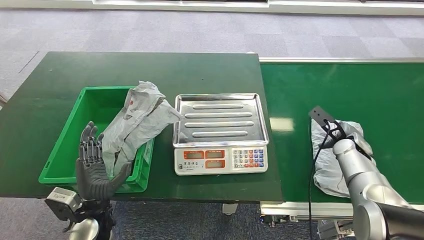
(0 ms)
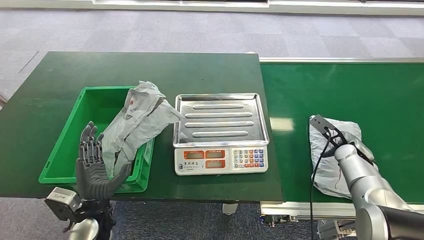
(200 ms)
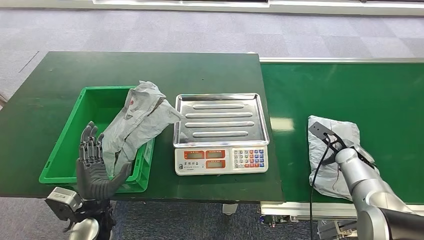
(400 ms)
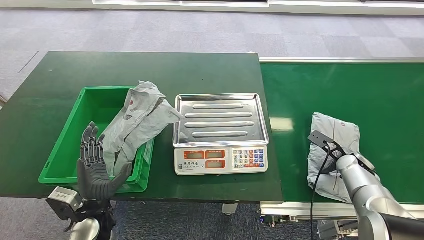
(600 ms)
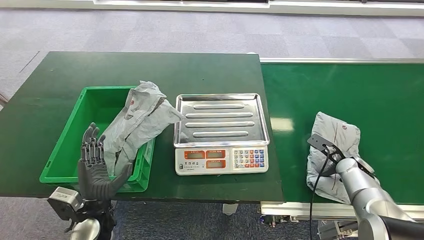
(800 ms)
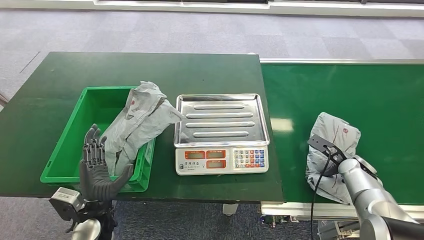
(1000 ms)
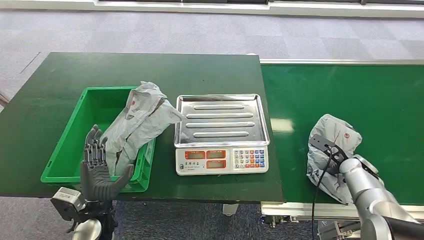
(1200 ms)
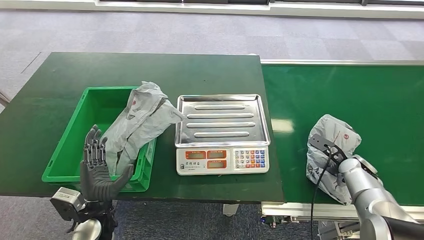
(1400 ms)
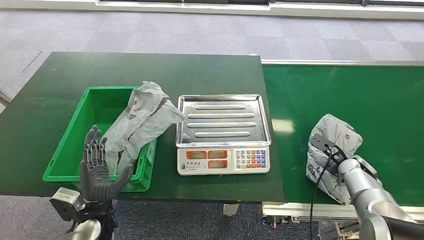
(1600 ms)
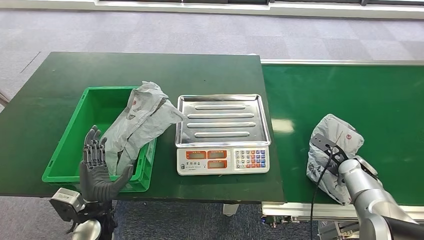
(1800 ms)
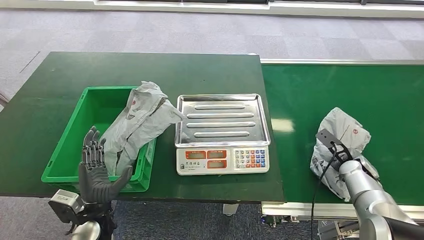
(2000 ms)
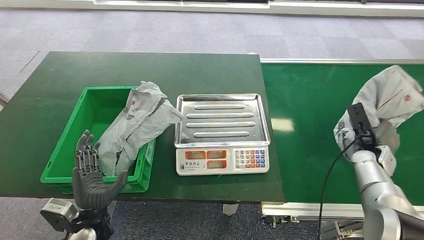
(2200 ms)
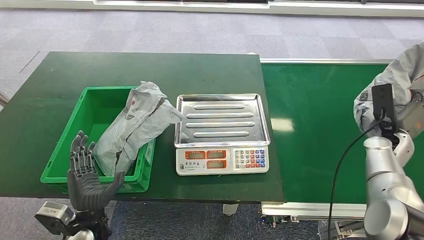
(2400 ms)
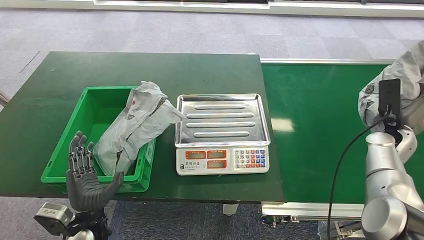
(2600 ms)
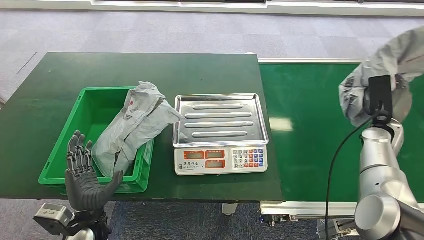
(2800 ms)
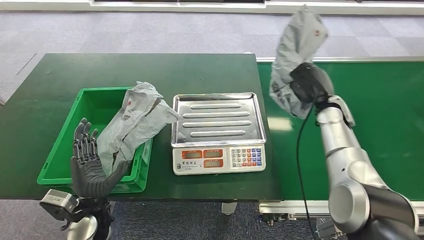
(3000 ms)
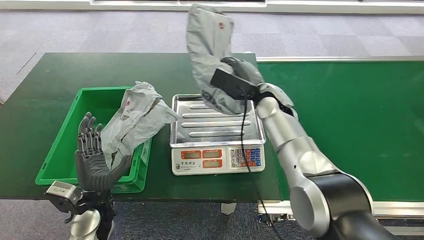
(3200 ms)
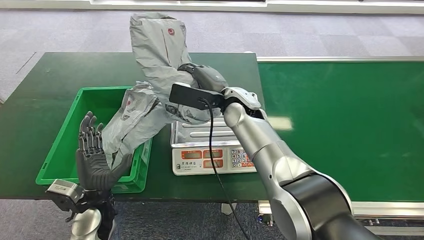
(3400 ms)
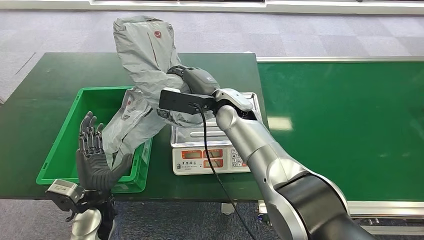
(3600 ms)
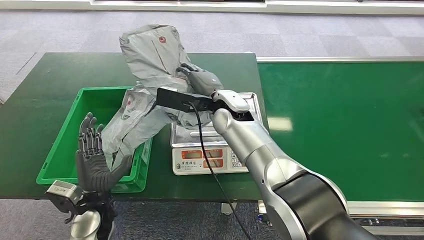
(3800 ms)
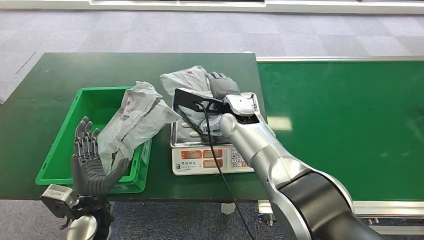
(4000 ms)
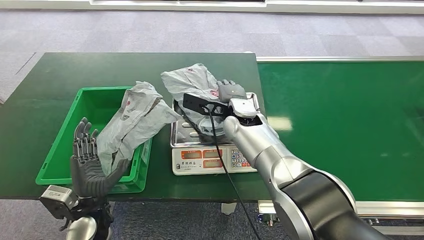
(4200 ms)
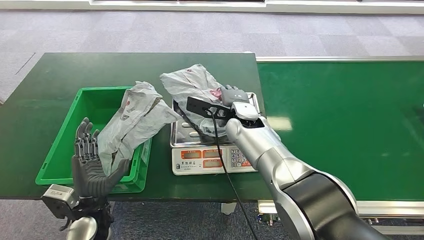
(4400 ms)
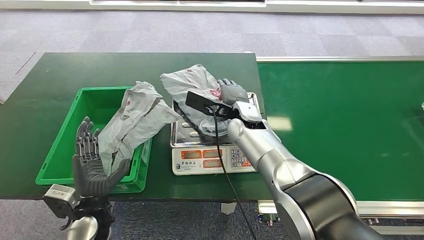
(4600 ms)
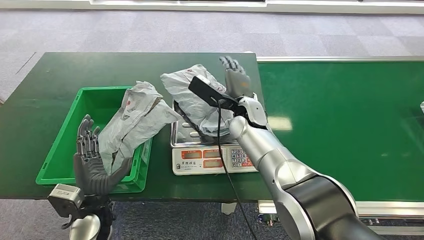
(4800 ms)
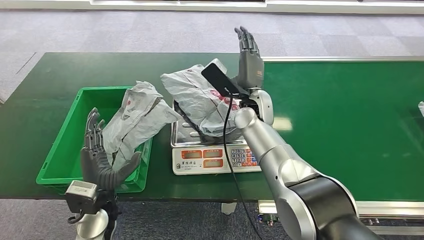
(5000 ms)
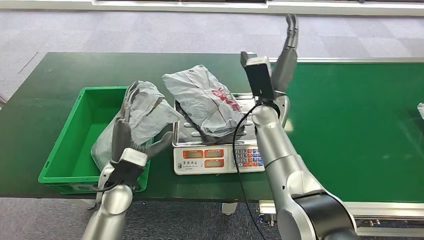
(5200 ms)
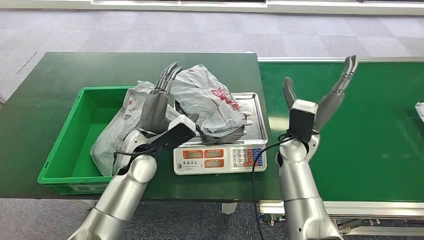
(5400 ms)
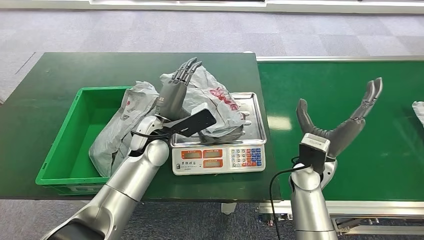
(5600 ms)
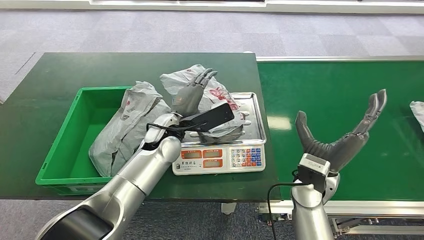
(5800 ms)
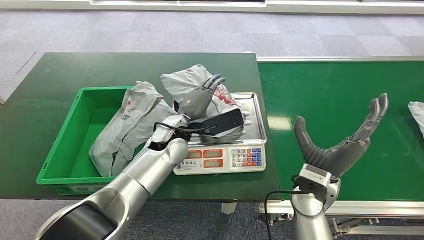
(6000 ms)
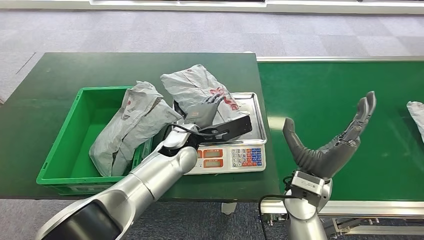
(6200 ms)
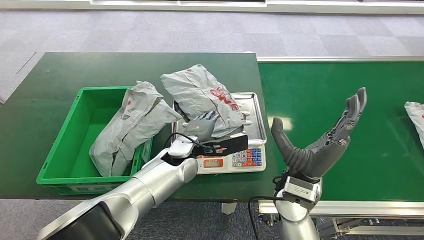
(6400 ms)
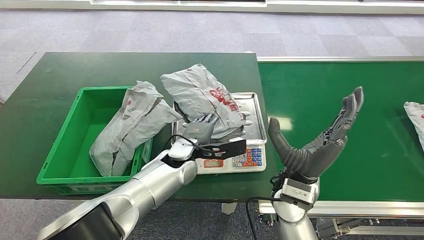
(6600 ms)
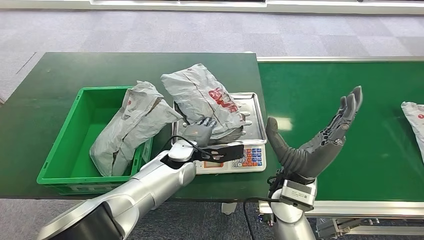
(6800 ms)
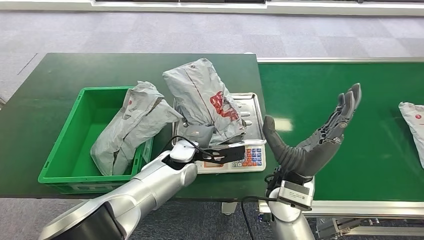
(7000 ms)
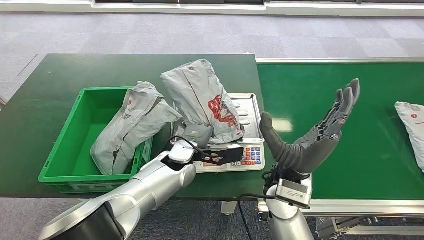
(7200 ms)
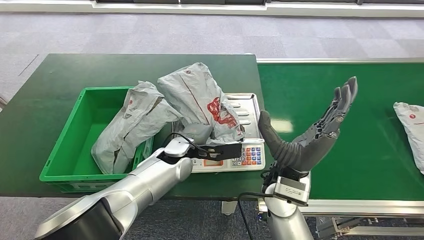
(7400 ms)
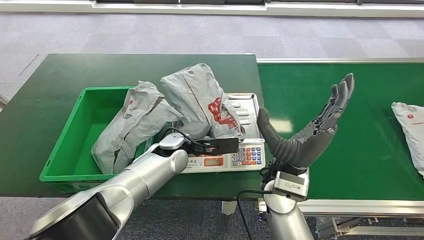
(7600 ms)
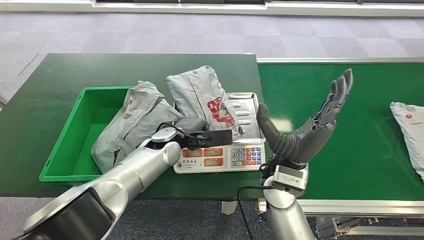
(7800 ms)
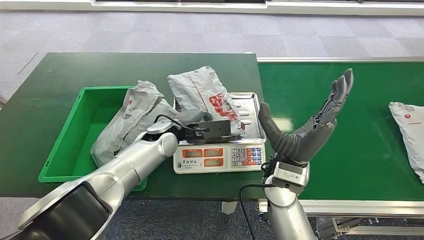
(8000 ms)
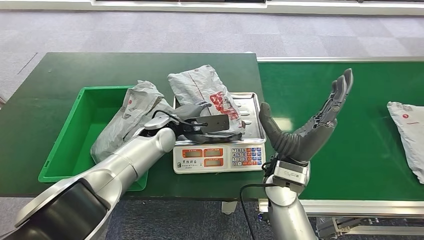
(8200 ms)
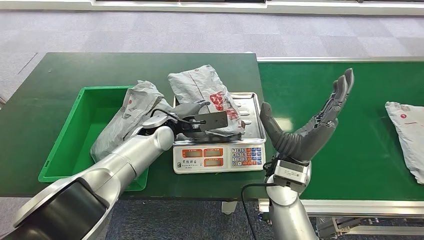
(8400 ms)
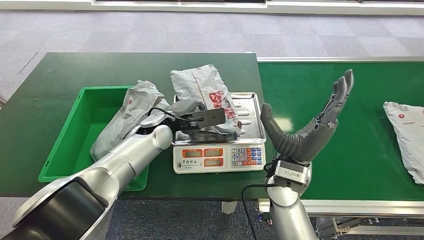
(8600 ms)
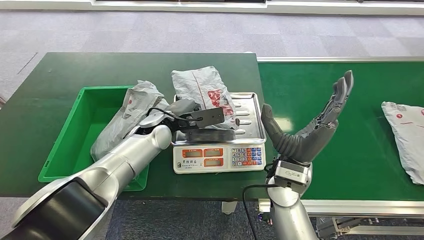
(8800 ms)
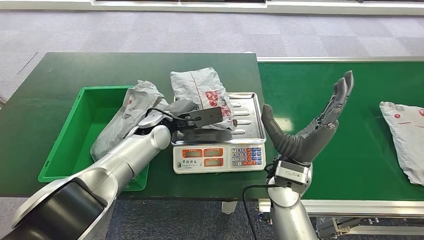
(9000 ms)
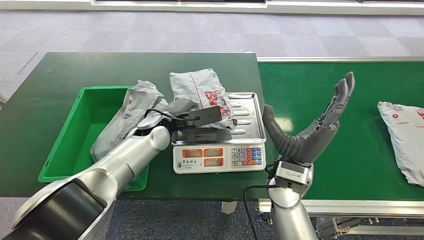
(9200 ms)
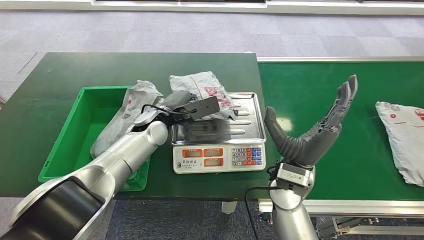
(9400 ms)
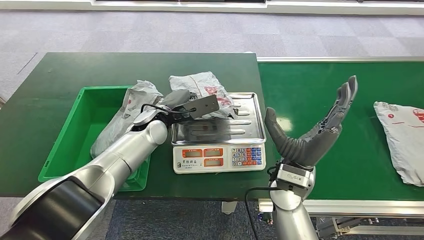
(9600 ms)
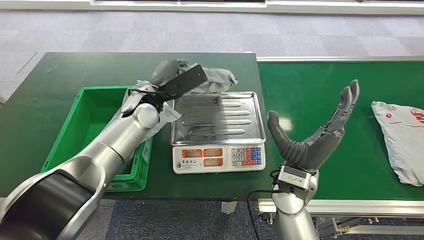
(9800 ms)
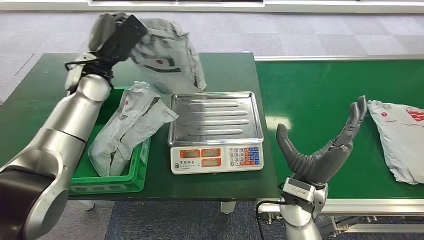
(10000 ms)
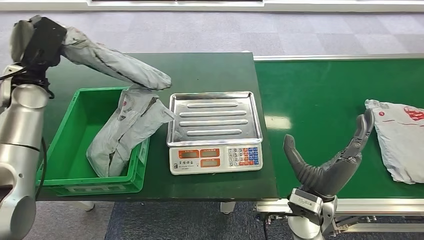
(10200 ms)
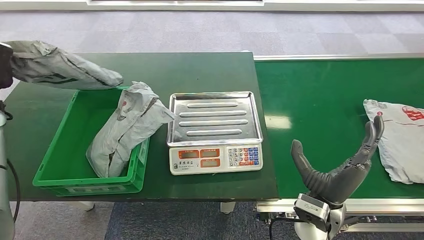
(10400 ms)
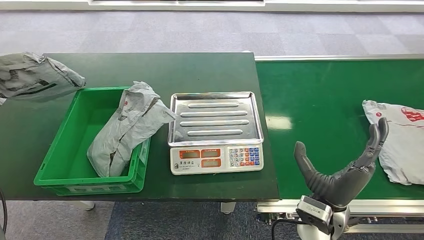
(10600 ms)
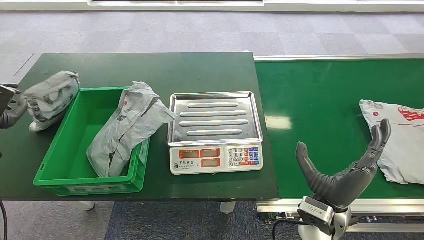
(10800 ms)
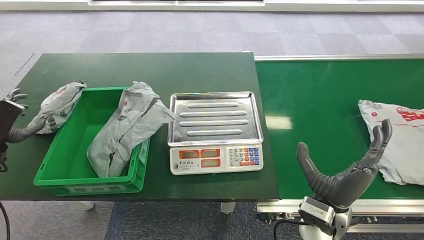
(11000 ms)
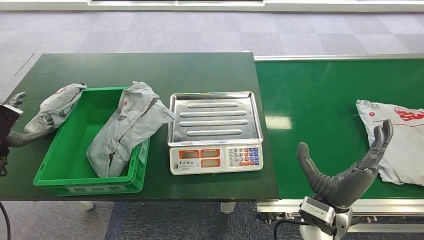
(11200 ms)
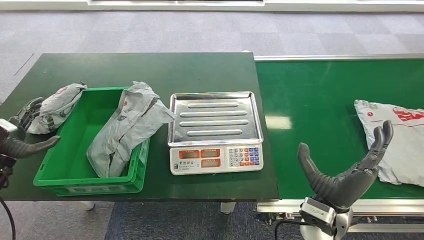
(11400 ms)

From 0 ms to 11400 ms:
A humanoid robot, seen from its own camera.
Step, from 0 ms to 2400 ms: Pick up the package from the conveyor belt.
Step, from 2800 ms to 4800 ms: Place the package onto the inbound machine.
Step, from 5000 ms to 10400 ms: Pick up the package from the inbound machine.
Step, from 10800 ms to 11400 ms: Place the package into the parcel locker.
From 0 ms to 1400 ms: The right hand shifts about 5 cm backward and downward.
